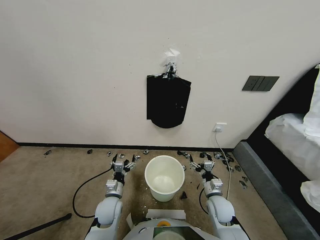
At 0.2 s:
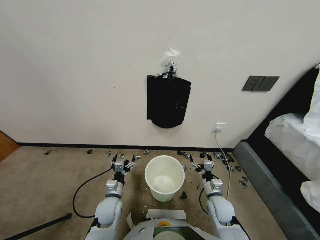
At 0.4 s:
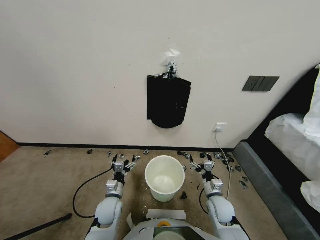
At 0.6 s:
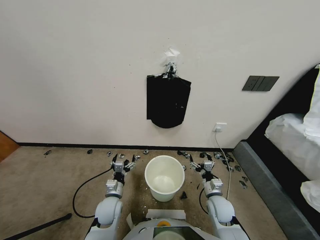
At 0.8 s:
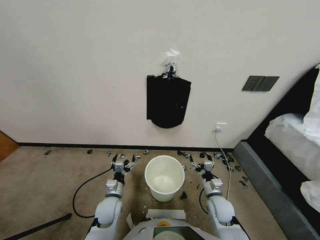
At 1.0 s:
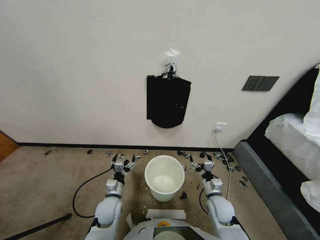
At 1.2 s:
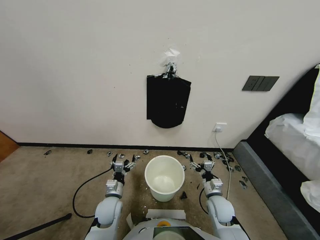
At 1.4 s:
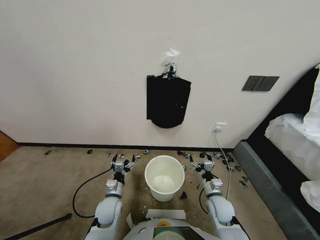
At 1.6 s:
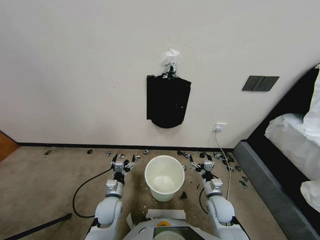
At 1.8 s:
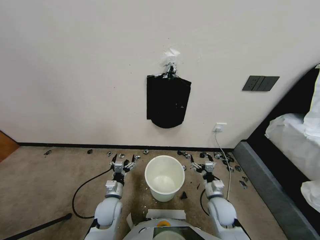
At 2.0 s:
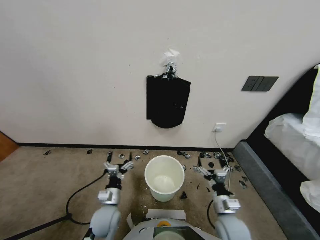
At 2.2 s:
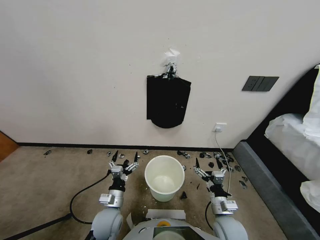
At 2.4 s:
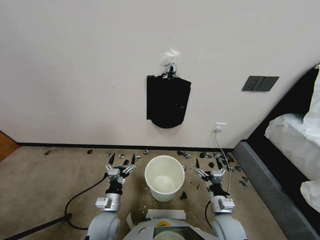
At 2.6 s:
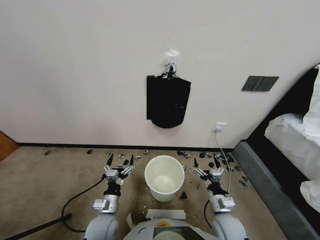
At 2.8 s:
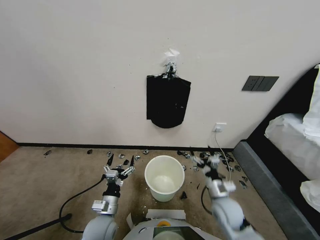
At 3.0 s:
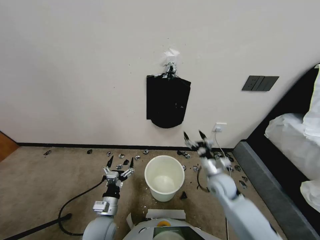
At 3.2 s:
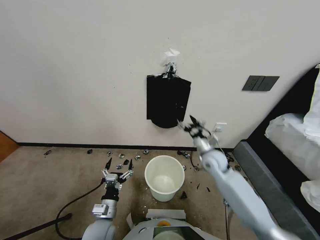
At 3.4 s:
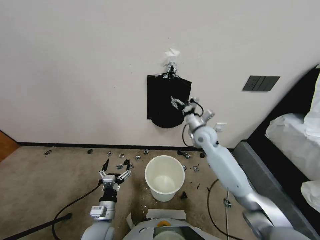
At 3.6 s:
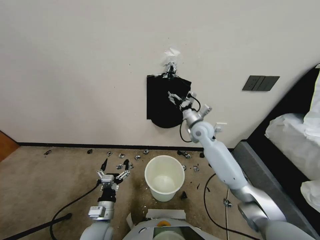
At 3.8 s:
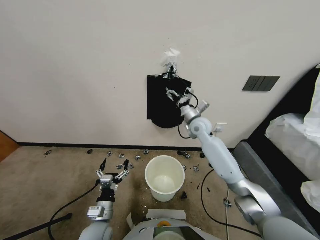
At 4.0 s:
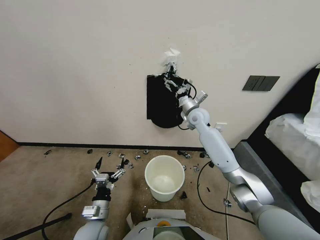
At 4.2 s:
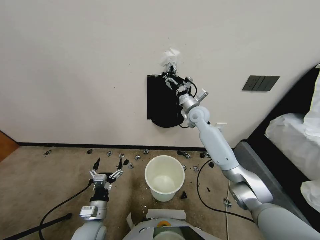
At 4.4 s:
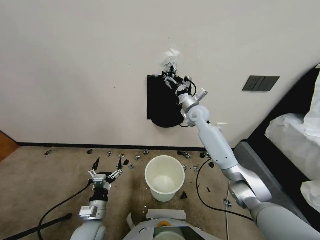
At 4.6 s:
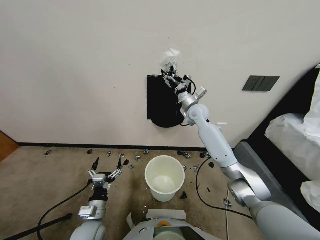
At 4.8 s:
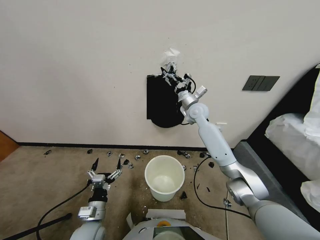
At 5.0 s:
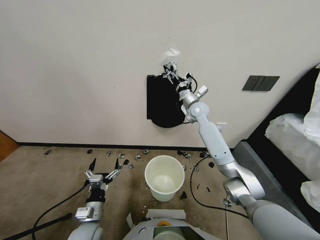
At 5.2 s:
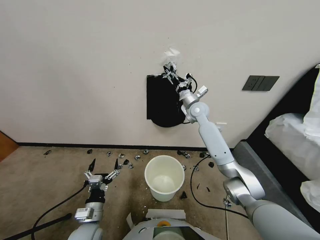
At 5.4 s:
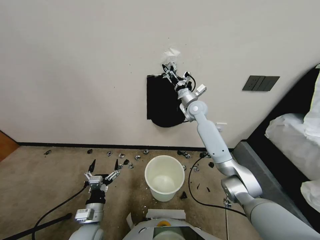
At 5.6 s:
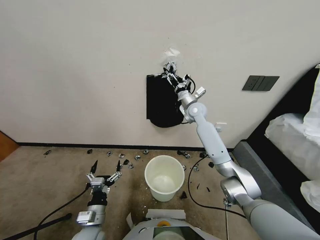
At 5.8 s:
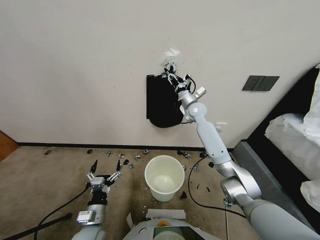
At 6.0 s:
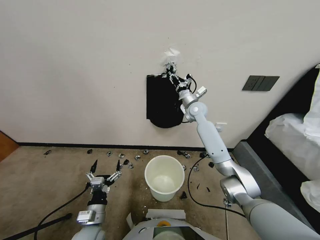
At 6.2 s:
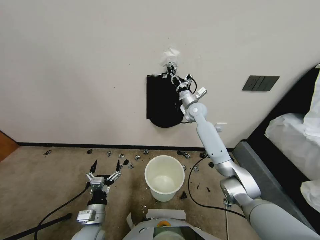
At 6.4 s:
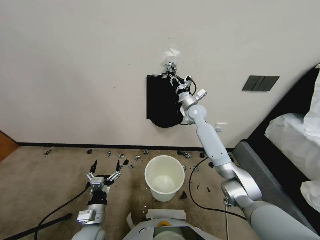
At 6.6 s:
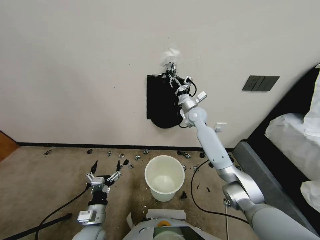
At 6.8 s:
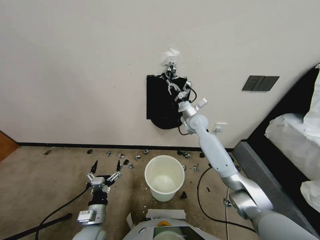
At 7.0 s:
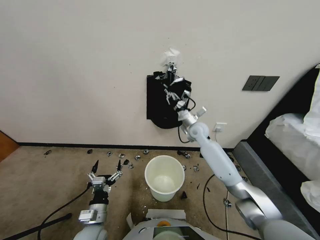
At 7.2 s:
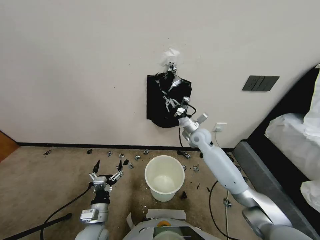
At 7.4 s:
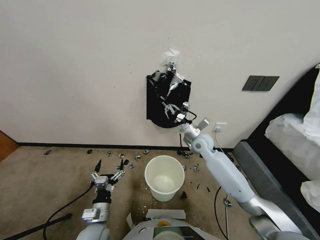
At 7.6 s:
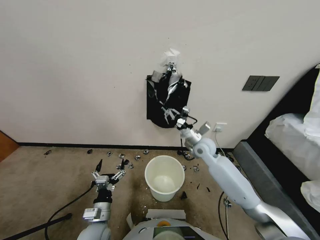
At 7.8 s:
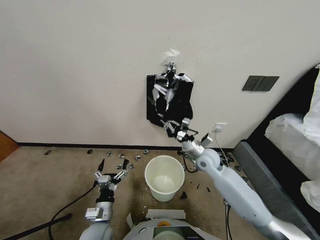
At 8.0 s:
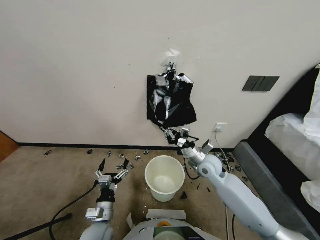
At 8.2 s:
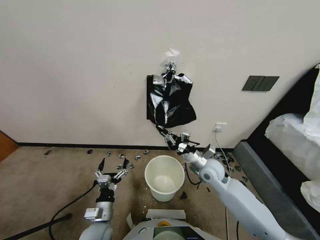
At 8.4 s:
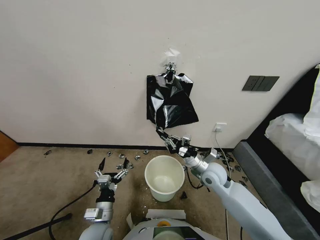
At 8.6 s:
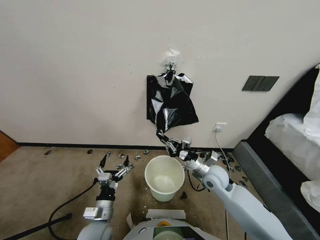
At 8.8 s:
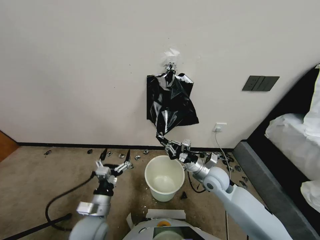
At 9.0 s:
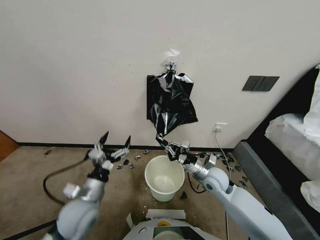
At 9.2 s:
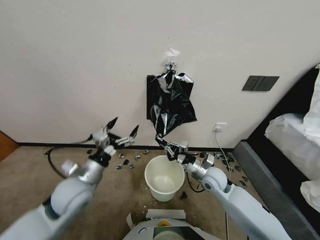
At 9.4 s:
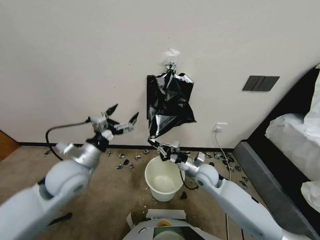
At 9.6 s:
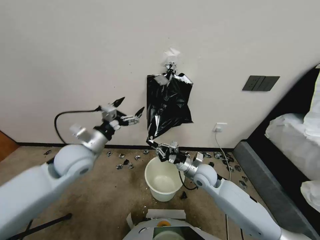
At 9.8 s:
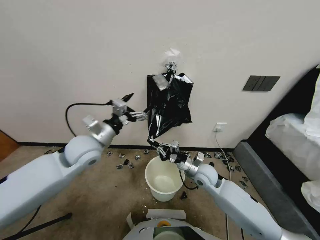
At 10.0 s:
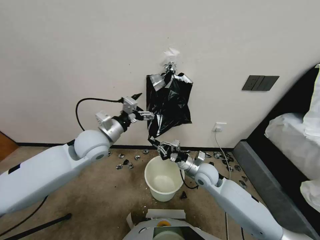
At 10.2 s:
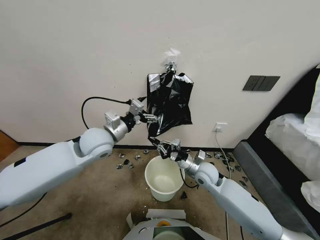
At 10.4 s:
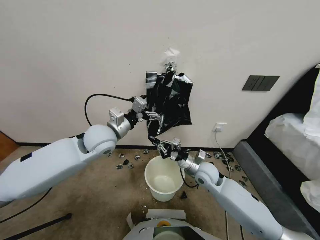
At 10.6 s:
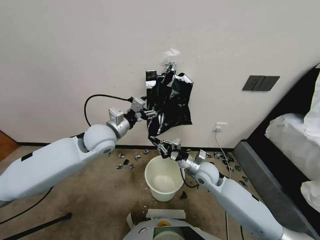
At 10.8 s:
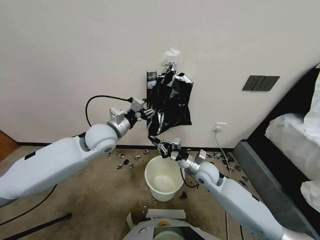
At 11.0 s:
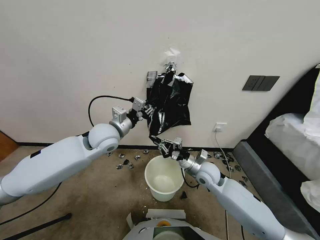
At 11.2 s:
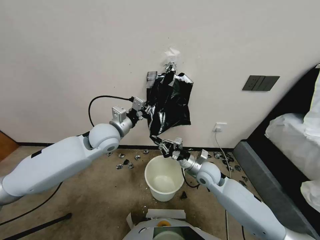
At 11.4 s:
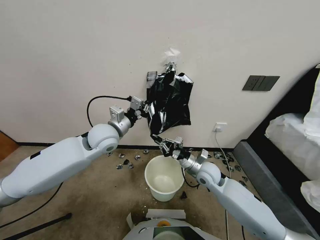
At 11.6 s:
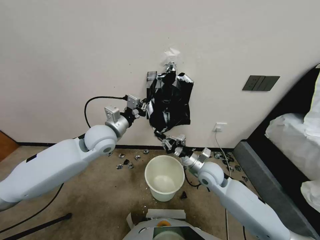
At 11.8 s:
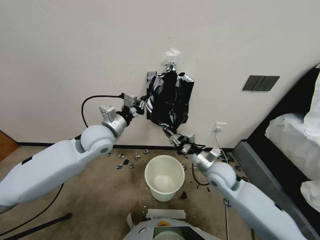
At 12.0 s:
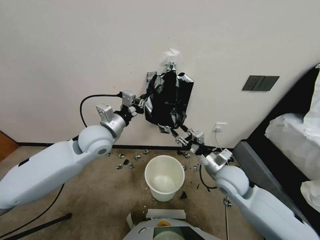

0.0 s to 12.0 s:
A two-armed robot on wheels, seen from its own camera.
Task of the whole recording: Place a trash bag onto the trash bin.
1.6 to 3.0 s: The right gripper heads upward and forward, covering some 15 cm; the left gripper travels backward by roughly 5 cm.
3.0 to 4.4 s: The right gripper heads forward and upward, covering roughly 25 cm.
4.4 to 6.0 s: The right gripper closes.
6.0 to 7.6 s: The right gripper shifts about 20 cm backward and downward.
7.6 to 9.0 s: The right gripper shifts approximately 10 cm backward, while the left gripper is displaced upward and forward by about 15 cm.
9.0 to 10.4 s: The left gripper goes approximately 20 cm forward and upward.
10.4 to 12.0 s: The right gripper goes some 10 cm upward and backward, and opens up, while the left gripper closes.

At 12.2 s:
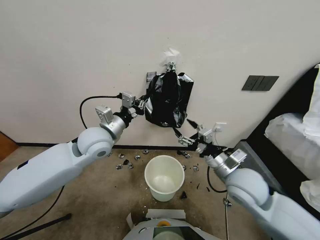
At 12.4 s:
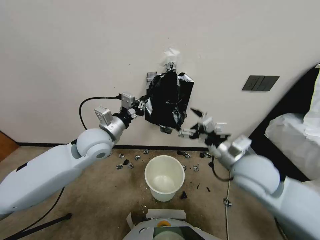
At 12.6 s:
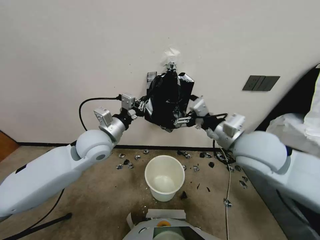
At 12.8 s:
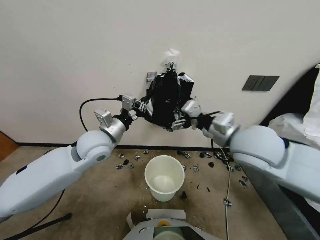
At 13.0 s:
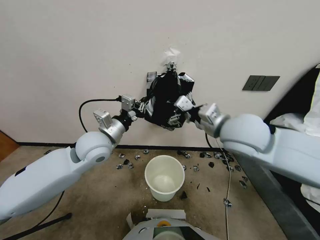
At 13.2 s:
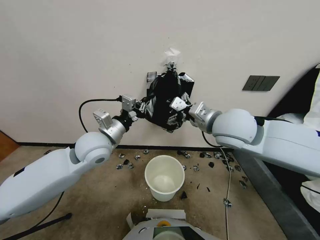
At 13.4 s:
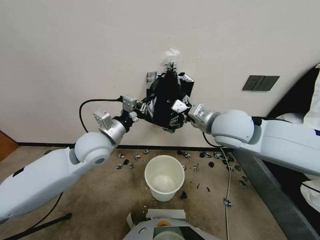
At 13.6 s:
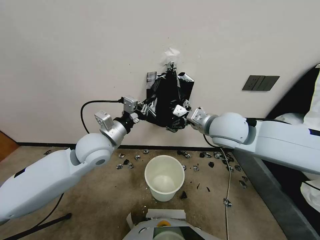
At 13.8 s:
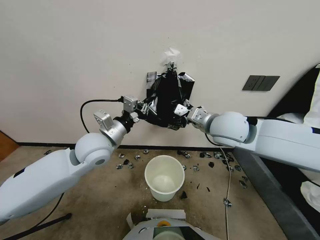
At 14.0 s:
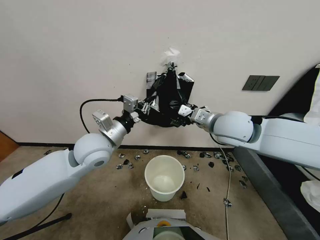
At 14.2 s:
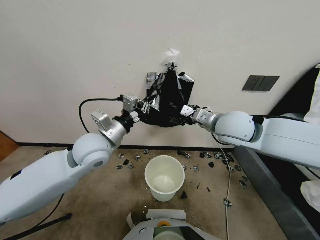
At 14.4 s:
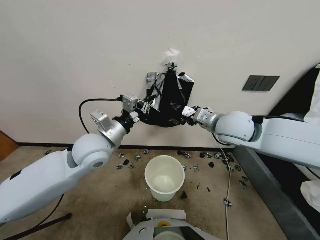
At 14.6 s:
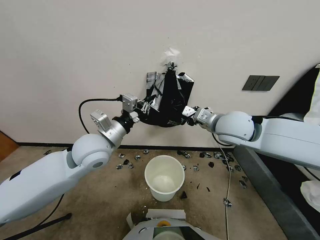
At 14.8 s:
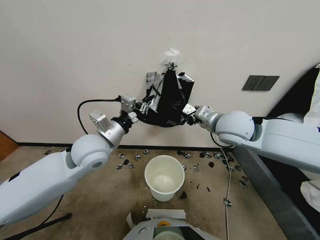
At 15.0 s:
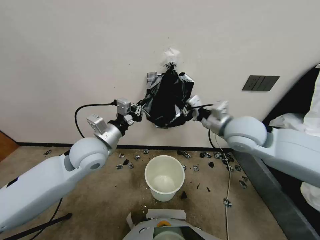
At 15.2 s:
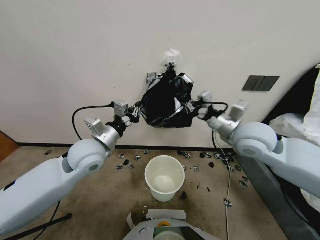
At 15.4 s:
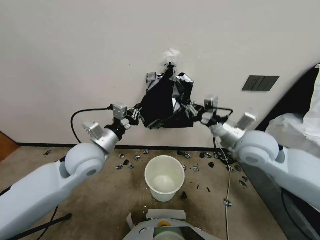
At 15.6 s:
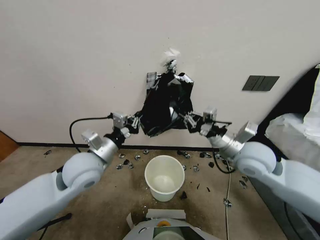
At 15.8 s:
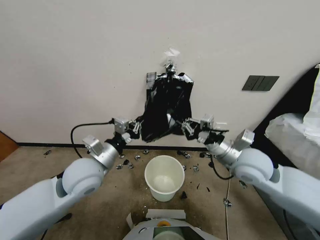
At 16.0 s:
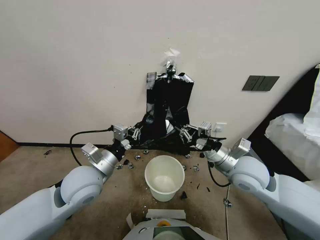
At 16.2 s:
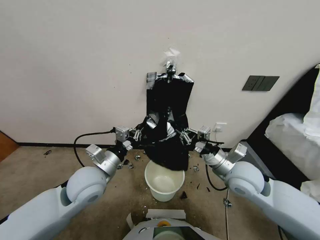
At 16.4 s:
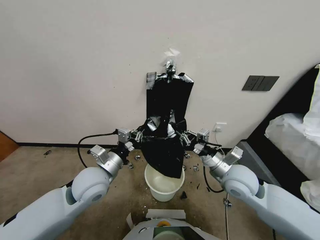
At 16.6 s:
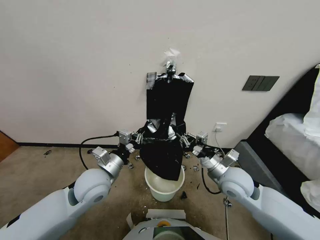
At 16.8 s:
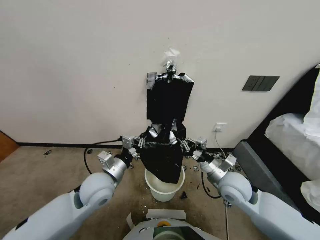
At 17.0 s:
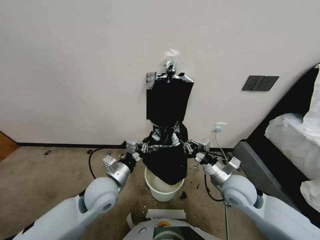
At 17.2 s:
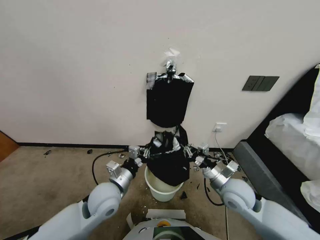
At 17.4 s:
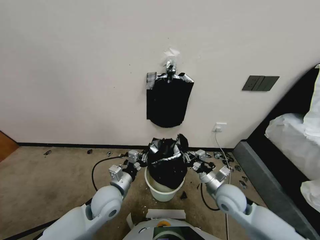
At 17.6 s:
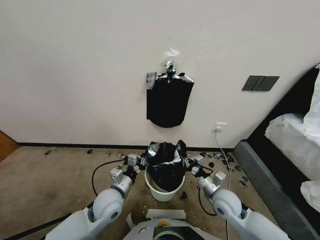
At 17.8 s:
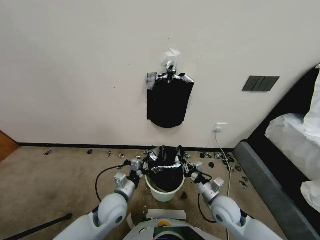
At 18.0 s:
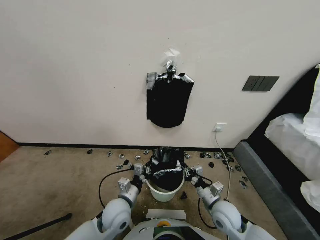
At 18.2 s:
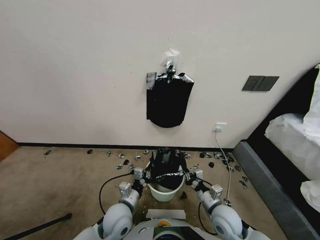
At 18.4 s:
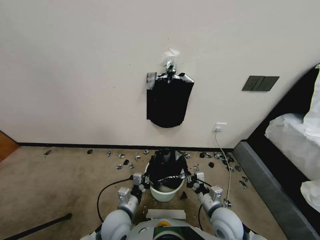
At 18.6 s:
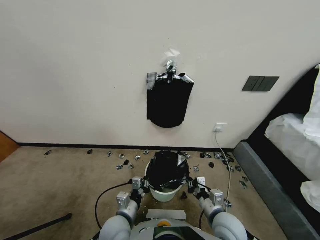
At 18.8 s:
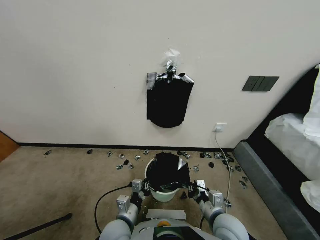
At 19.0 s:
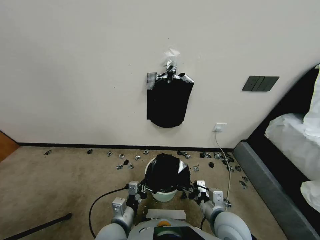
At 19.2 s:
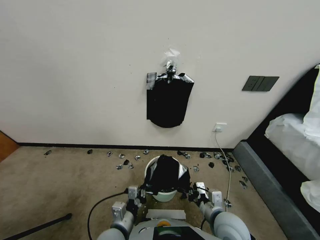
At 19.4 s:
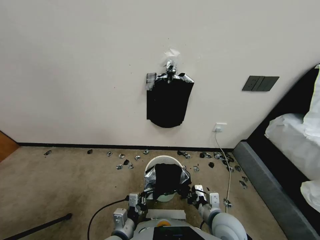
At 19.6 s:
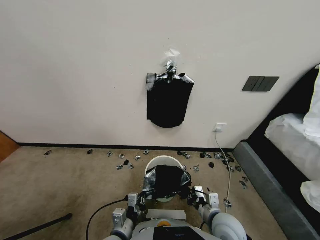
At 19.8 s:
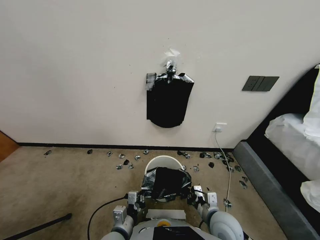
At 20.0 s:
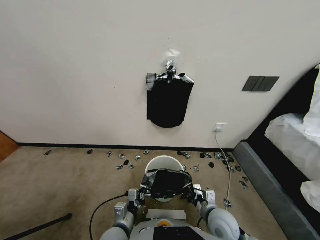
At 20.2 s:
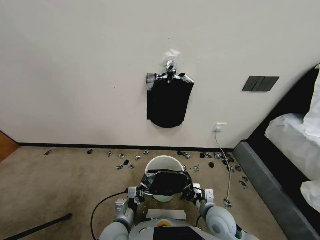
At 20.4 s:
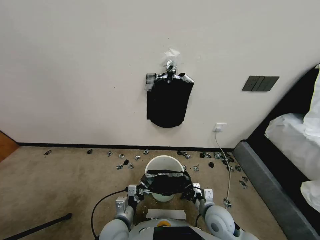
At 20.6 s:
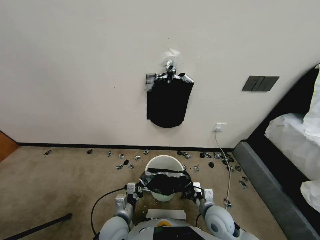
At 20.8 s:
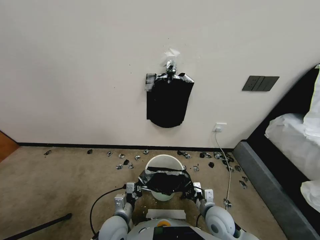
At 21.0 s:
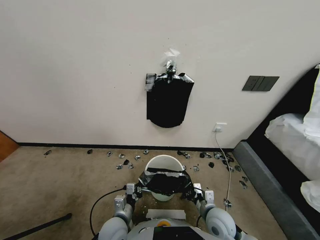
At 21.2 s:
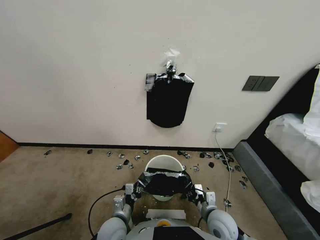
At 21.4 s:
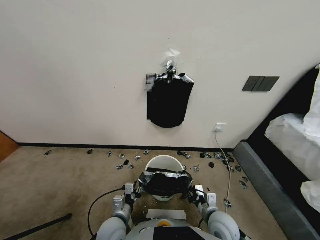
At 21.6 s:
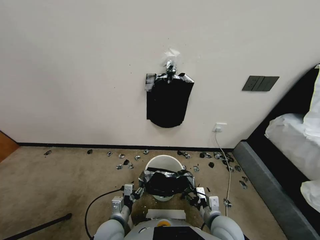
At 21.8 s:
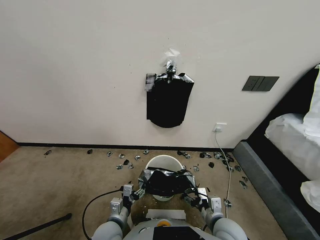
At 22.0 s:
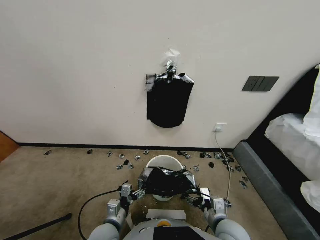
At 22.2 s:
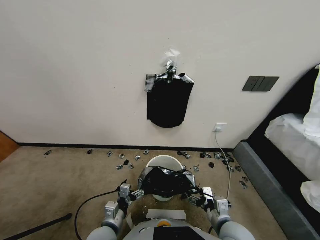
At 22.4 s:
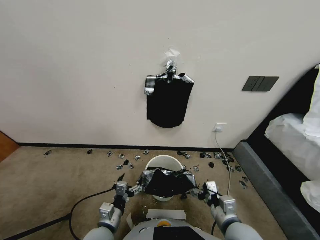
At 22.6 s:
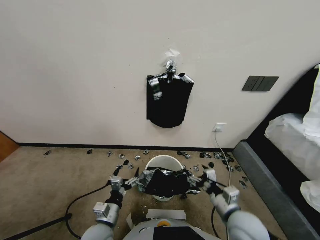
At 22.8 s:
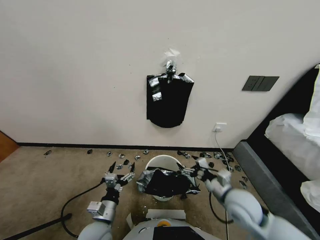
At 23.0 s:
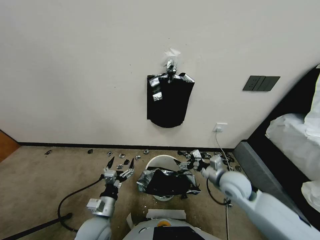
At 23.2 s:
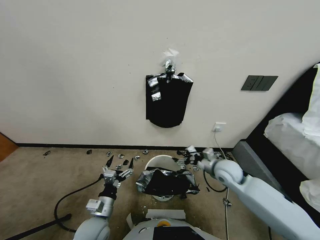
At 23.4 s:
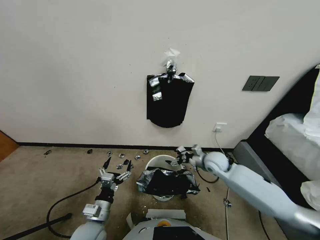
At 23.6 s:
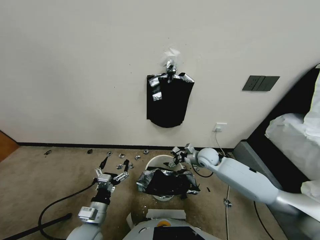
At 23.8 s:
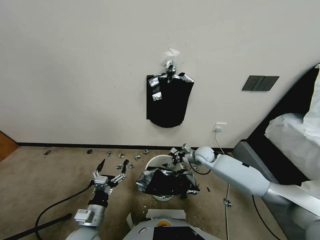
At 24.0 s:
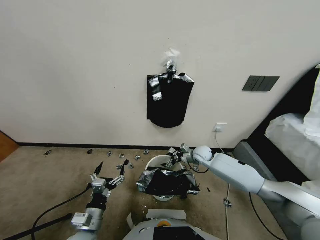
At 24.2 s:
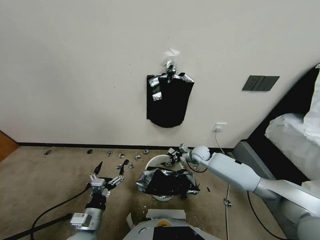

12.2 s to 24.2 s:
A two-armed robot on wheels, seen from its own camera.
Task of the whole recording: Place a trash bag onto the trash bin.
12.2 to 13.8 s: The right gripper heads forward and upward, covering roughly 15 cm.
13.8 to 15.2 s: The right gripper moves to the right, approximately 5 cm, and closes up.
15.2 to 16.6 s: The right gripper shifts about 15 cm downward and backward; the left gripper is displaced downward and backward by roughly 10 cm.
16.6 to 18.2 s: Both grippers move downward and backward, some 15 cm.
18.2 to 19.8 s: The left gripper shifts by roughly 5 cm.
19.8 to 21.2 s: The grippers make only small movements.
21.2 to 22.6 s: The left gripper shifts by some 5 cm, and opens. Meanwhile the right gripper goes some 10 cm upward, and opens.
22.6 to 24.2 s: The right gripper moves forward, about 30 cm, and closes.
